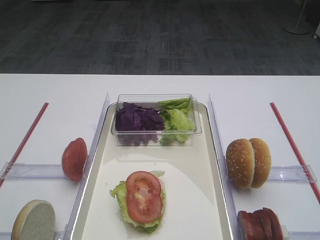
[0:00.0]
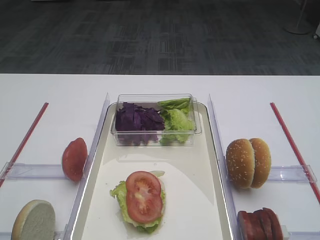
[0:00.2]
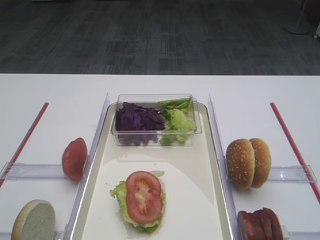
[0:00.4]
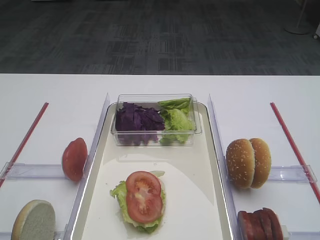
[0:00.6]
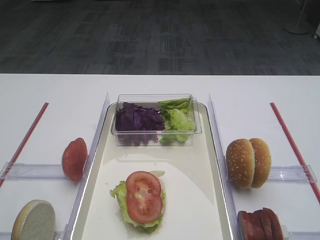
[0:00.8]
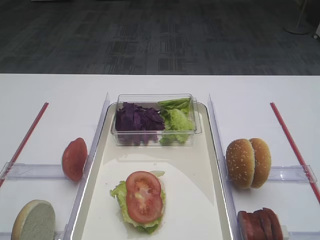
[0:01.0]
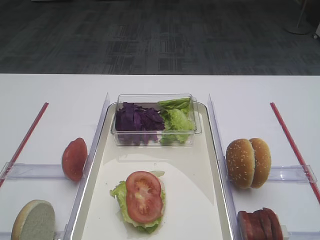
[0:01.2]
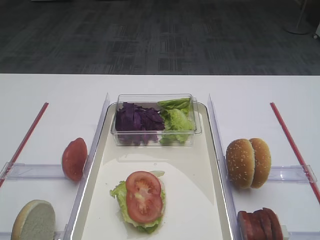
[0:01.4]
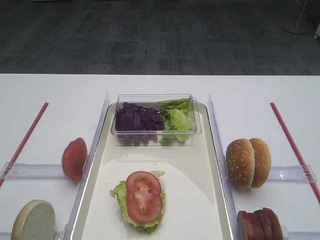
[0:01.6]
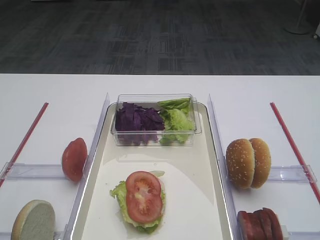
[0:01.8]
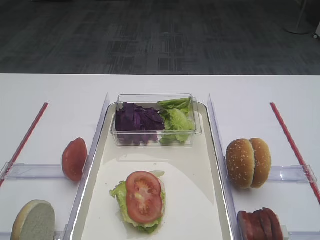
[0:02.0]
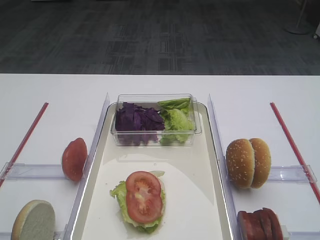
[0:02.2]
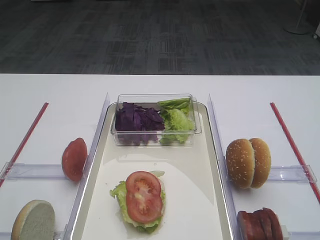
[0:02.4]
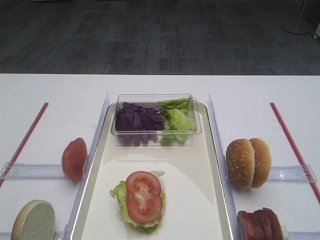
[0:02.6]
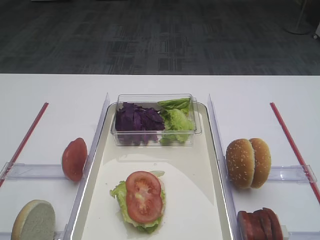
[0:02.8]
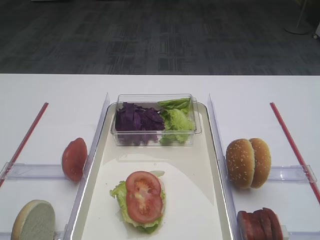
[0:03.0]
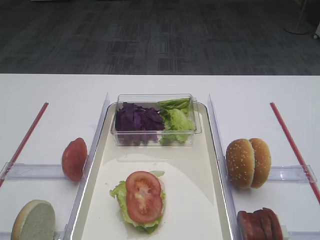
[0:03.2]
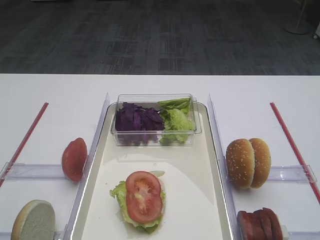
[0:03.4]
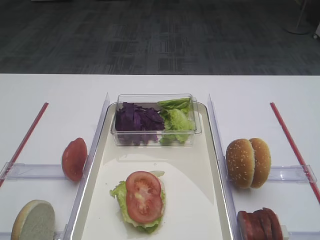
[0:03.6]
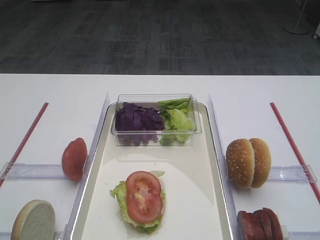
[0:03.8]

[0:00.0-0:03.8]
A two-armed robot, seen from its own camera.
0:01.2 to 0:03.8: The two grippers keep their place.

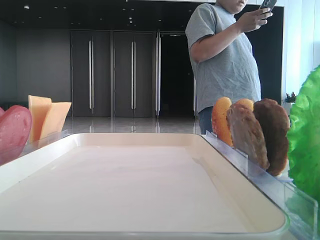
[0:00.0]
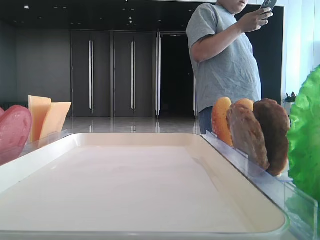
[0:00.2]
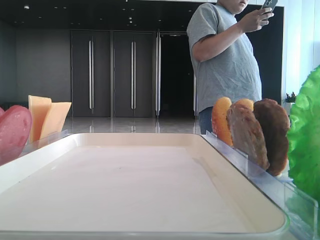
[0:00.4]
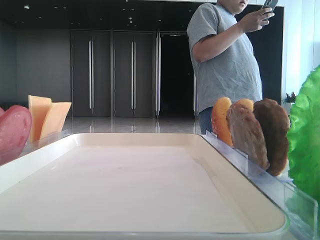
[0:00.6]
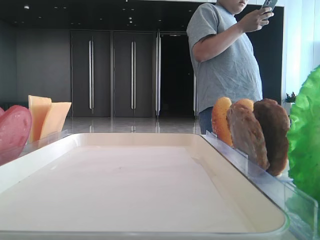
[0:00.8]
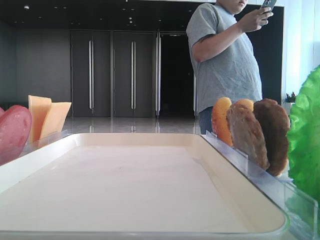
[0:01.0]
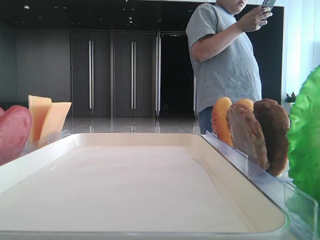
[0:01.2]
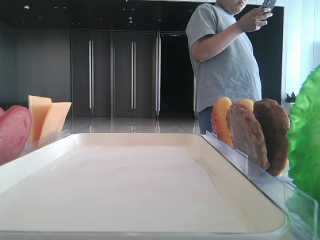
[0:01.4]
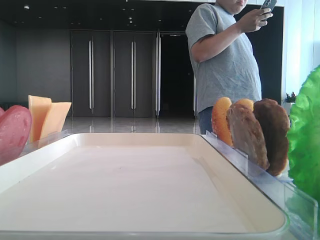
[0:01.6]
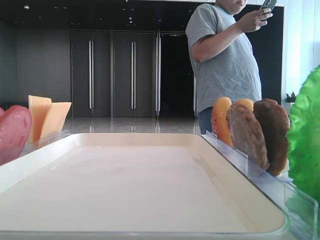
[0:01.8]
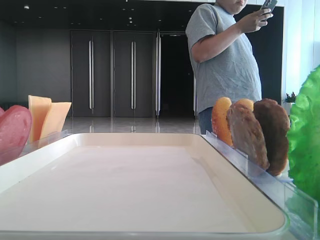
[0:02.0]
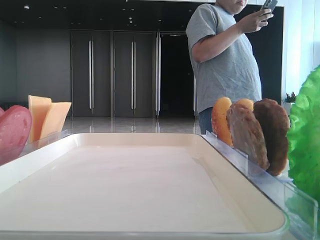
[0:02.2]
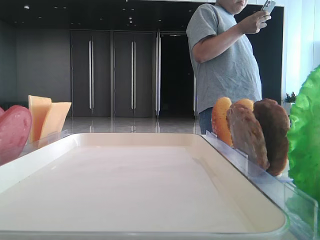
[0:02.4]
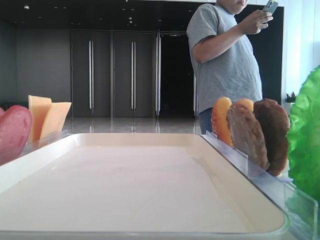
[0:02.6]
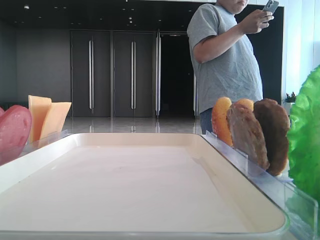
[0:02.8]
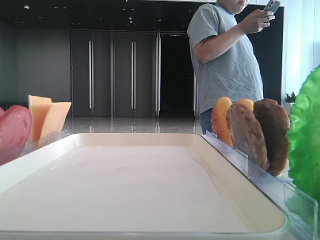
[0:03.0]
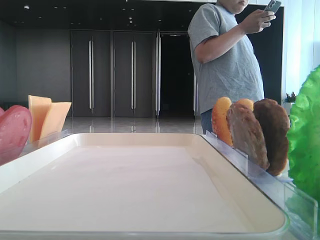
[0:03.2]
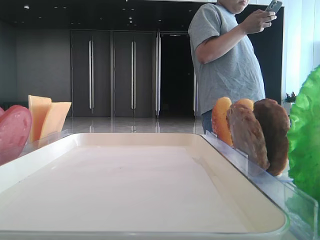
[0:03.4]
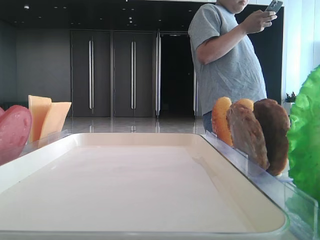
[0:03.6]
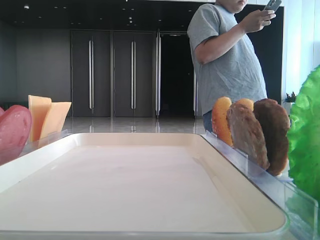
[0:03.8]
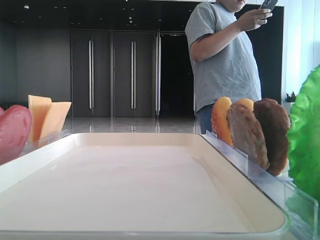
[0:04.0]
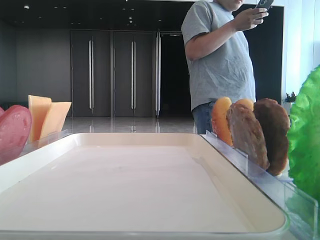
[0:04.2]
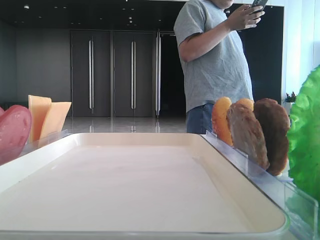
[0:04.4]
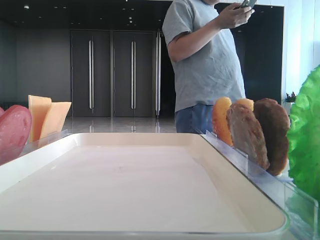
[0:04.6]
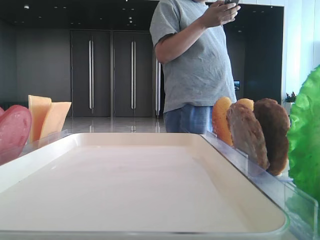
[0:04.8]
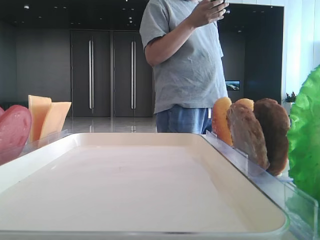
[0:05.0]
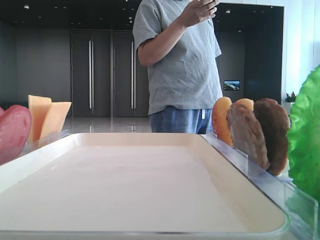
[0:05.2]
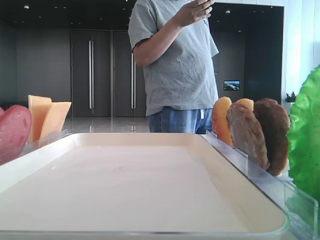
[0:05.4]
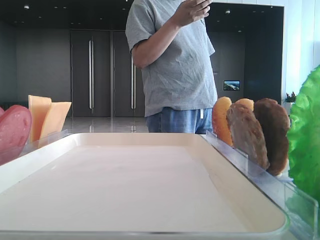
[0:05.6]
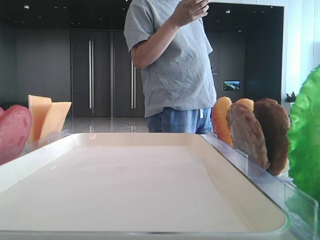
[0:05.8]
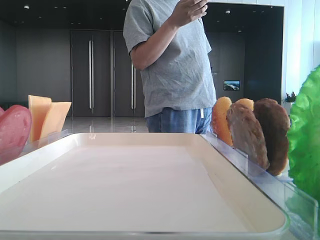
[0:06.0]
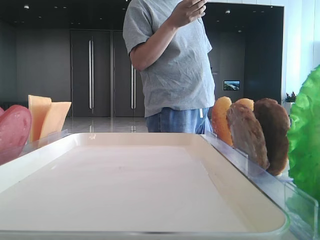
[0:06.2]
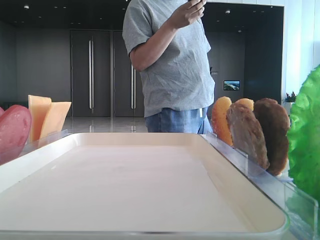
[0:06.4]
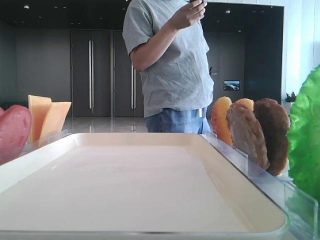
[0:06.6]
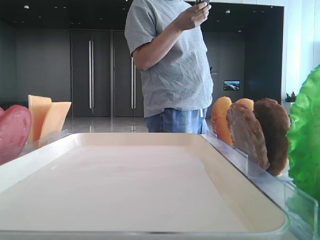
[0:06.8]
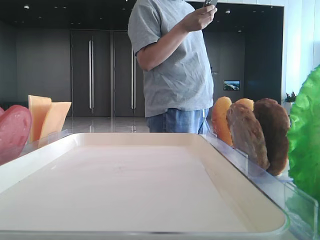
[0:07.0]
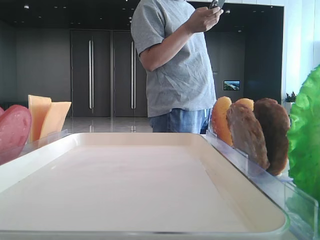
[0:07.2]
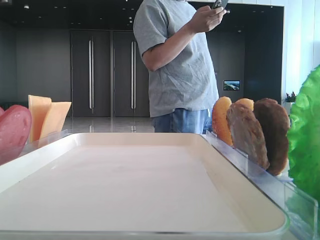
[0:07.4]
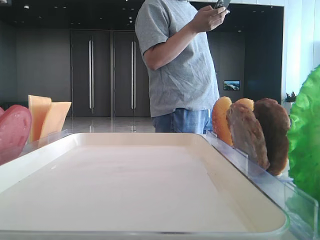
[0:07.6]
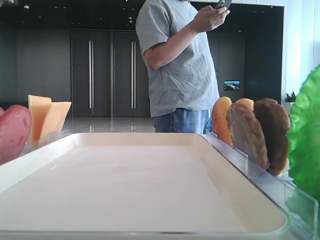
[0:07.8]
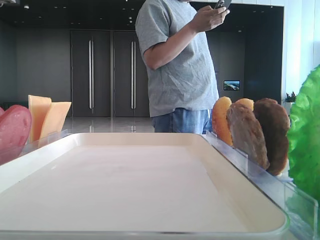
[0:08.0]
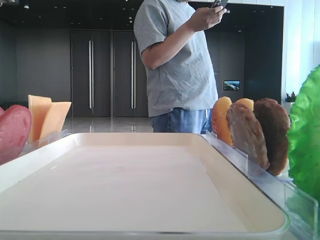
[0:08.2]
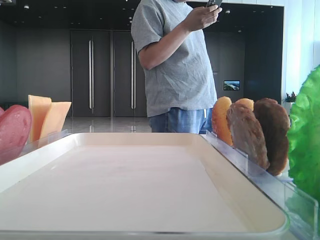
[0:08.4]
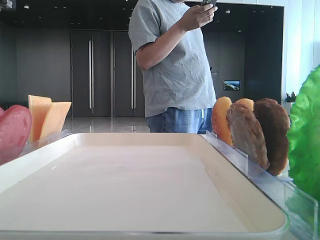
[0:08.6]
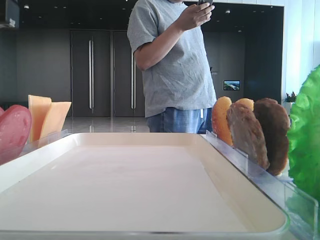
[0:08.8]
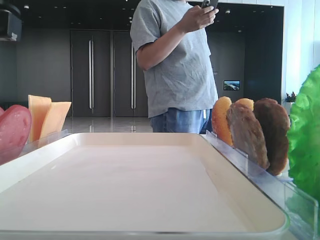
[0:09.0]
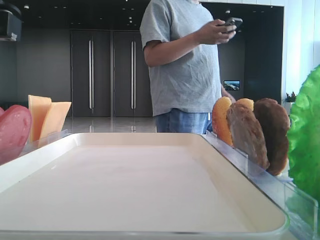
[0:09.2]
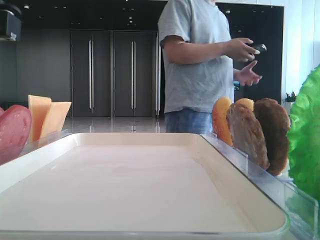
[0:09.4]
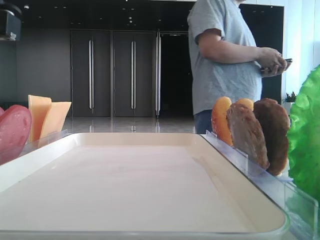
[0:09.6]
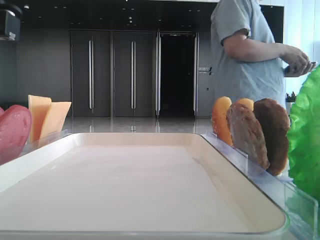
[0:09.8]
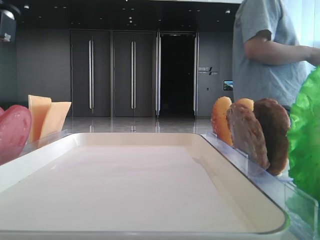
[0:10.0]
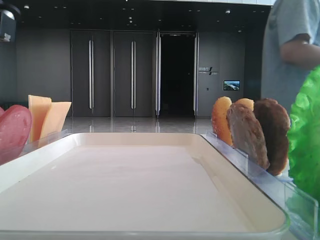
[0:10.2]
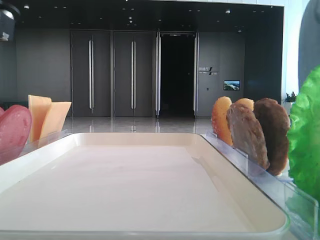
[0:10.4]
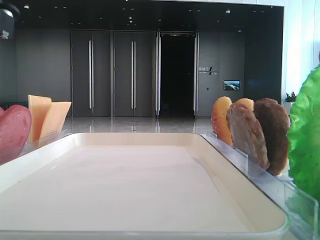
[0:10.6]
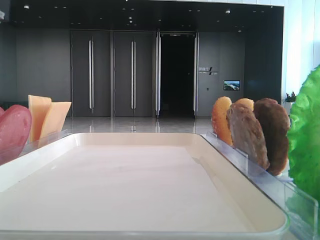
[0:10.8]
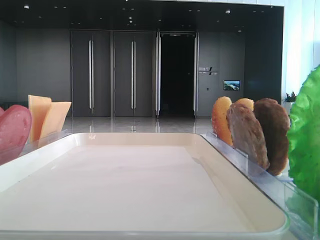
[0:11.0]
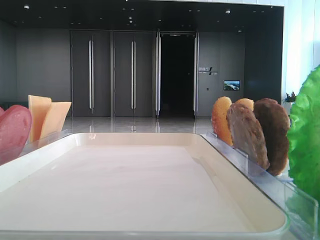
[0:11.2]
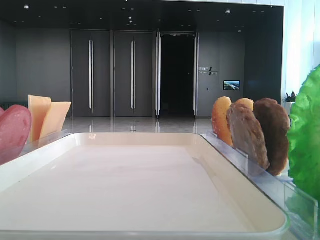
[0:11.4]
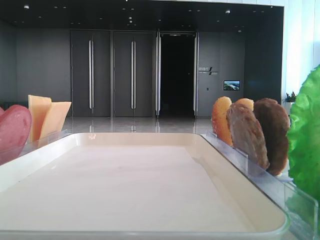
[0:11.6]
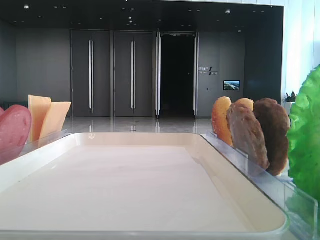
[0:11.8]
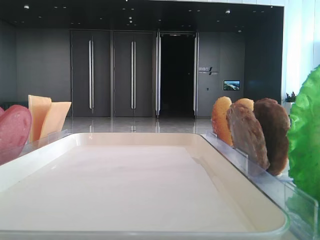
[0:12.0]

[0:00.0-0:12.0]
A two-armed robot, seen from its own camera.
0:01.6 to 0:03.0: The grippers make only small movements.
0:03.0 to 0:04.4: The left gripper goes approximately 15 cm forward.
0:04.4 to 0:06.0: The left gripper is displaced to the right by about 10 cm.
0:06.0 to 0:07.6: The left gripper goes approximately 10 cm to the right and downward.
0:07.6 to 0:09.0: The grippers make only small movements.
0:09.0 to 0:10.4: The left gripper closes.

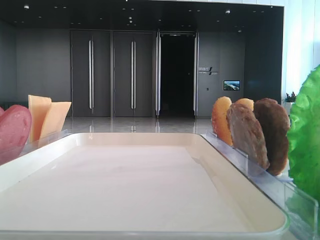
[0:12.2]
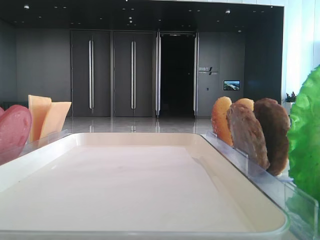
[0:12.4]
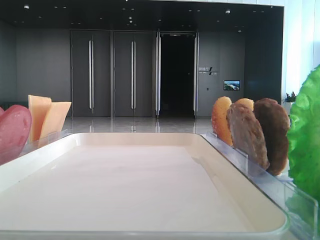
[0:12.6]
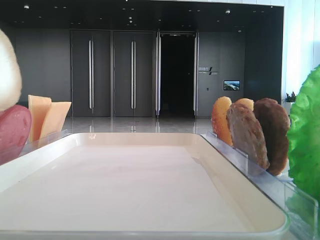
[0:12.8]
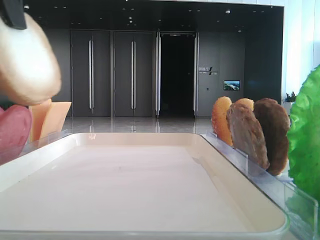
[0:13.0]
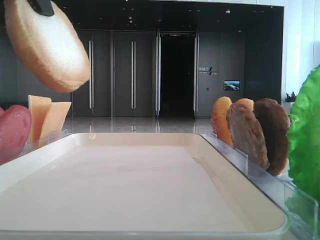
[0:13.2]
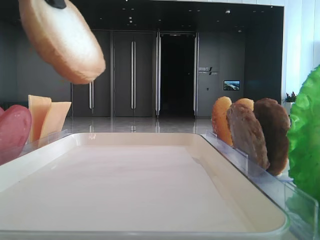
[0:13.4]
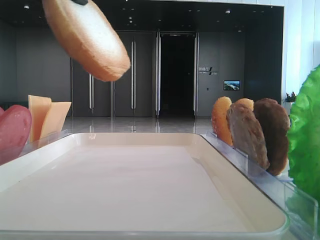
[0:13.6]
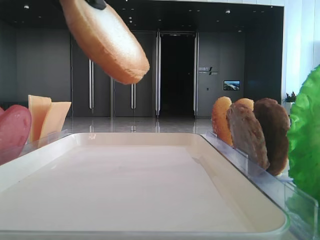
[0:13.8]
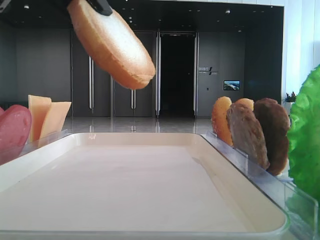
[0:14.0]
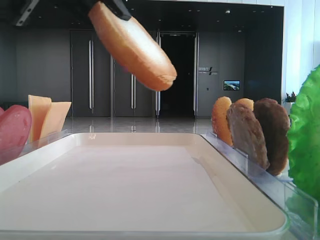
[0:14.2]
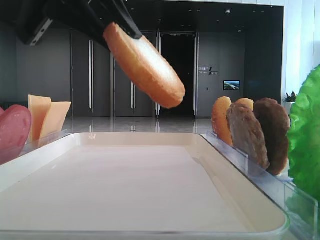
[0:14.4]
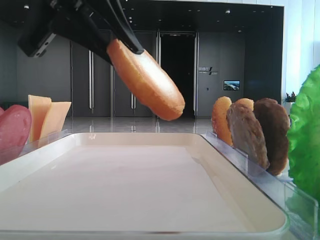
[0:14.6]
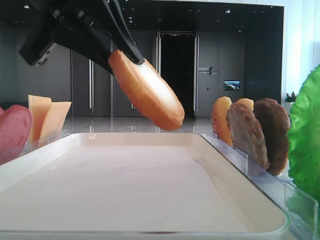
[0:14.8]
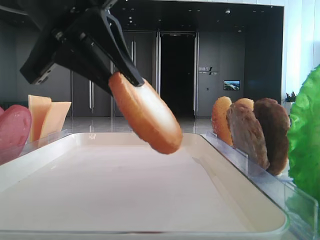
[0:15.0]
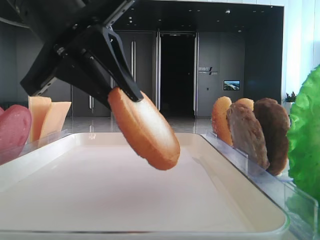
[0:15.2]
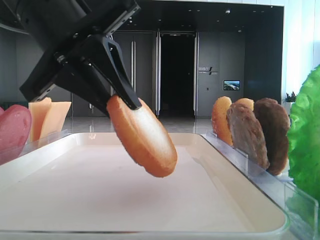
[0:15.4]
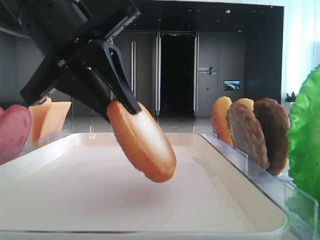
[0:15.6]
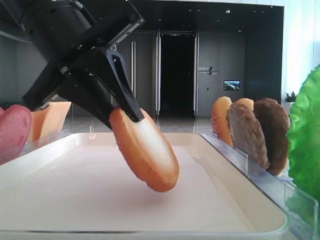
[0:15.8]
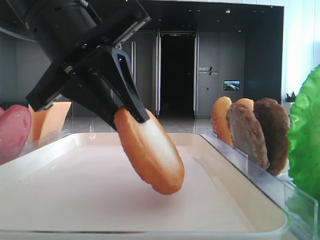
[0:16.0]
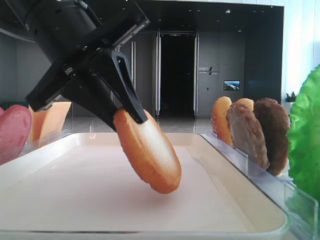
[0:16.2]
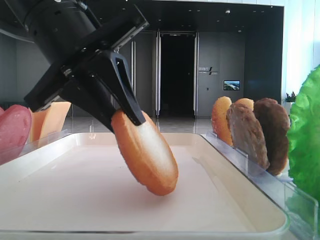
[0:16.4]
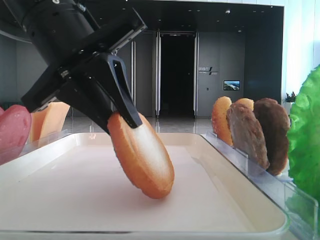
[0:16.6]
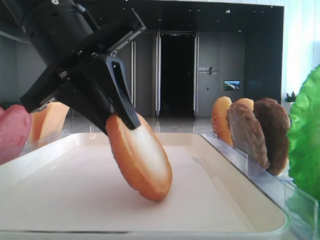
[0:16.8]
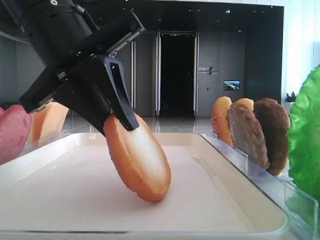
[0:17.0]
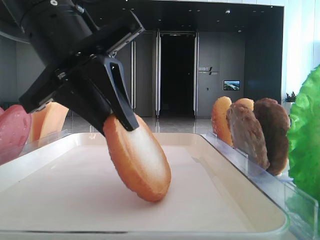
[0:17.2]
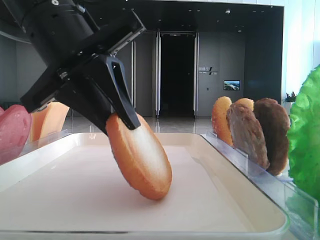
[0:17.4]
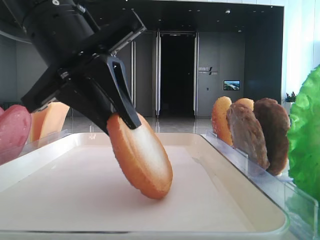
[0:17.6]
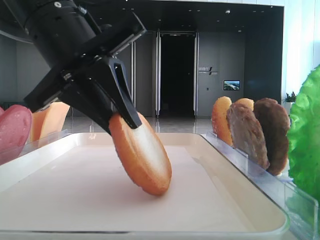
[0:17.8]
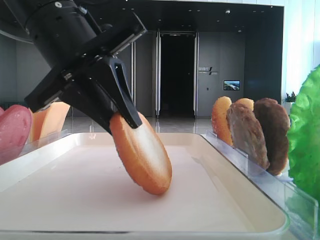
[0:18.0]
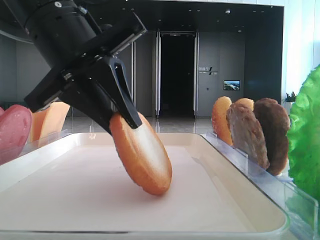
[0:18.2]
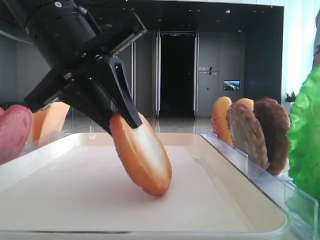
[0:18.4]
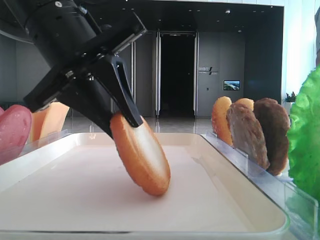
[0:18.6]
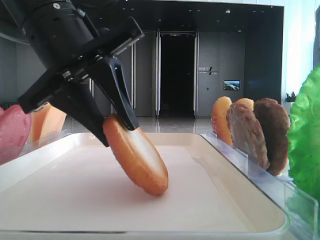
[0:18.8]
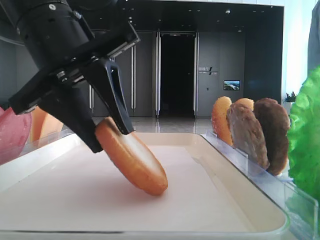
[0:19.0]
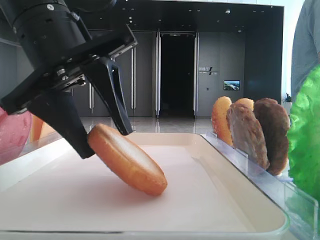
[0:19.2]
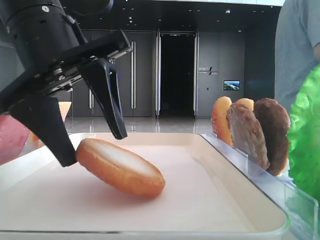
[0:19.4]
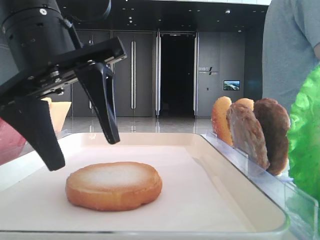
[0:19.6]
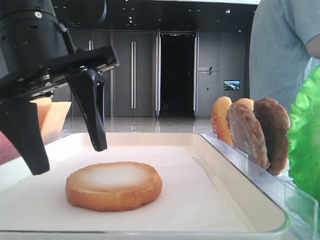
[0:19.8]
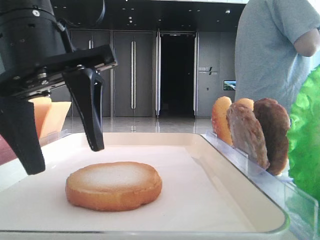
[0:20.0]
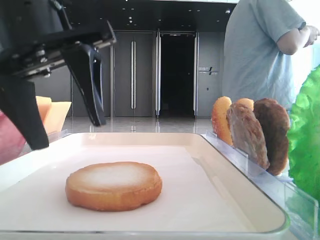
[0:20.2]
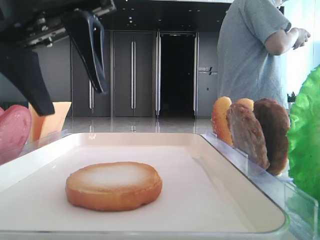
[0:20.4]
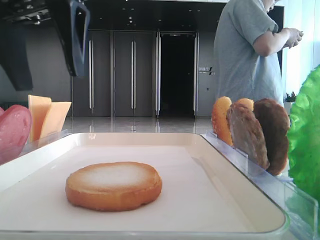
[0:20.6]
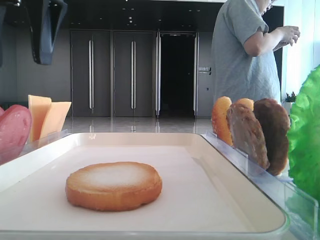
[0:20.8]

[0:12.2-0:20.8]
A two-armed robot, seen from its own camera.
Step, 0:12.2 to 0:19.6: Place the bread on the tray with the left hand.
0:13.6 to 0:15.0: The left gripper travels downward by some 10 cm.
0:15.0 to 0:16.6: The grippers stay close to where they were, moving slightly.
0:16.6 to 0:18.0: Both grippers stay about where they are.
0:18.0 to 0:19.4: The left gripper opens.
0:19.4 to 0:20.8: The left gripper goes some 10 cm upward.
